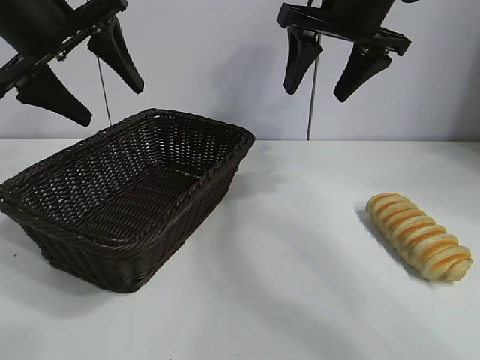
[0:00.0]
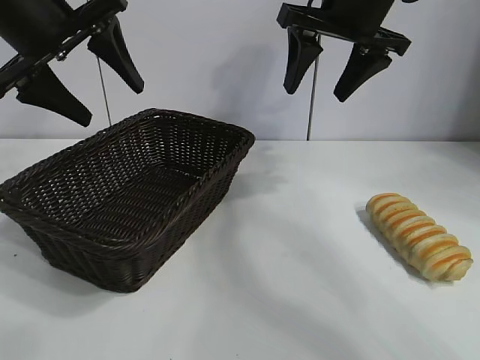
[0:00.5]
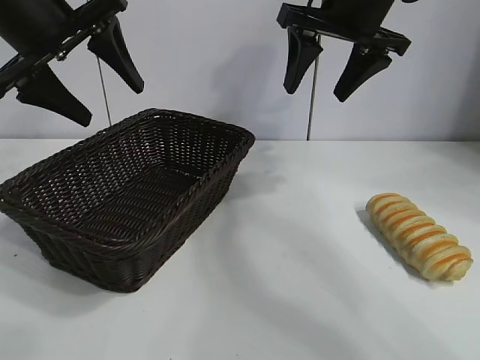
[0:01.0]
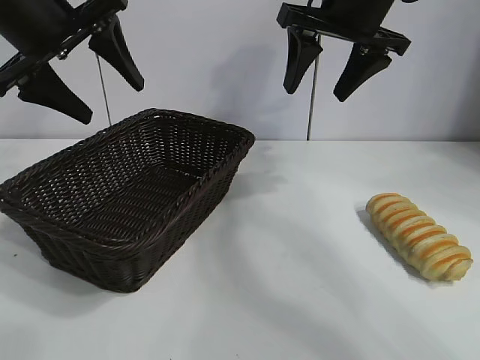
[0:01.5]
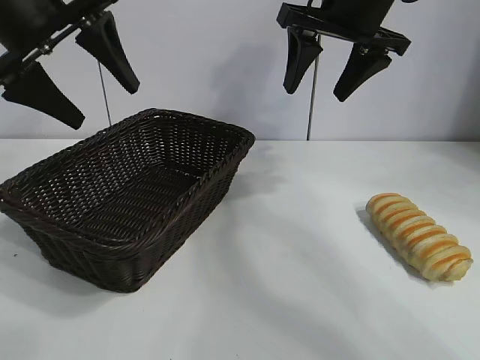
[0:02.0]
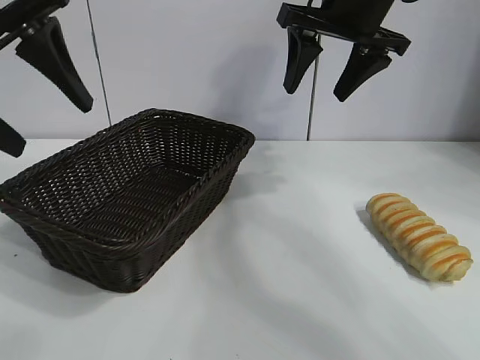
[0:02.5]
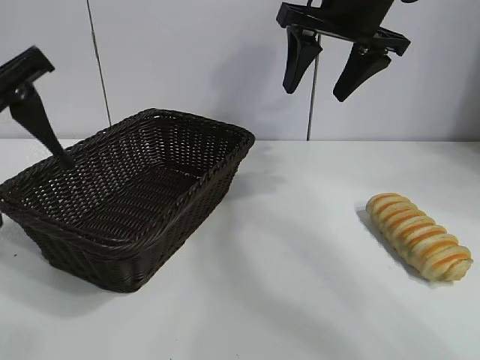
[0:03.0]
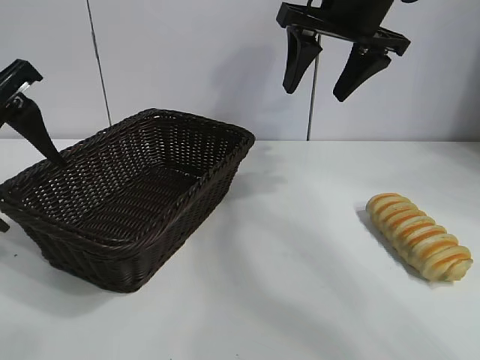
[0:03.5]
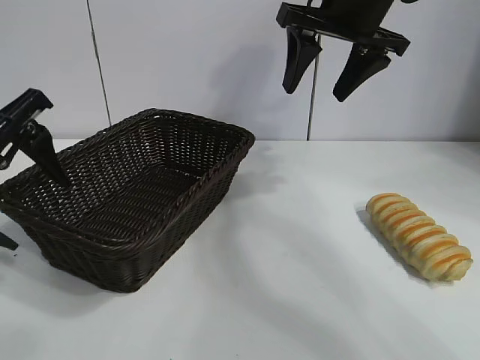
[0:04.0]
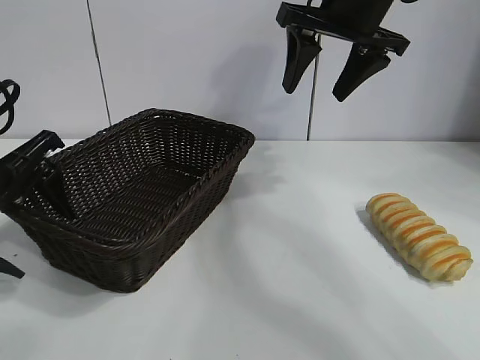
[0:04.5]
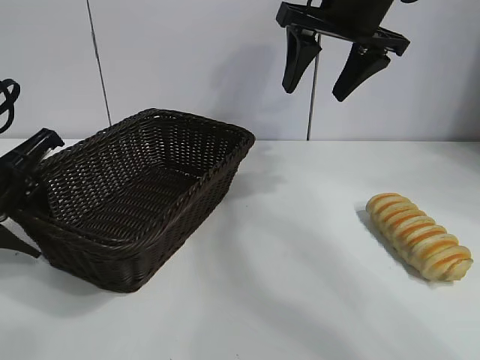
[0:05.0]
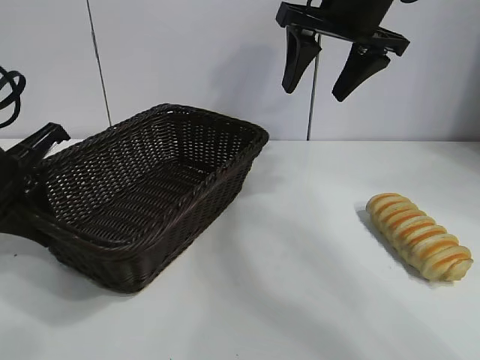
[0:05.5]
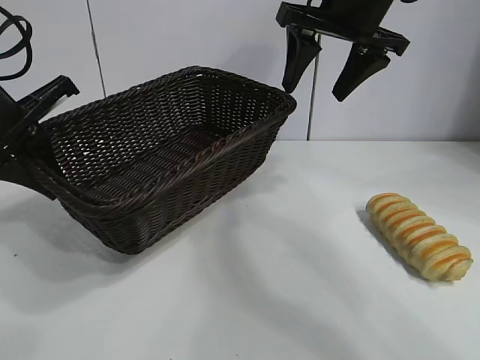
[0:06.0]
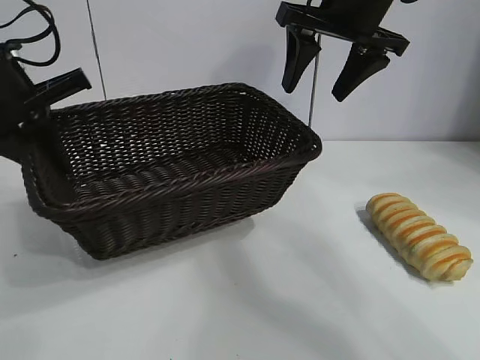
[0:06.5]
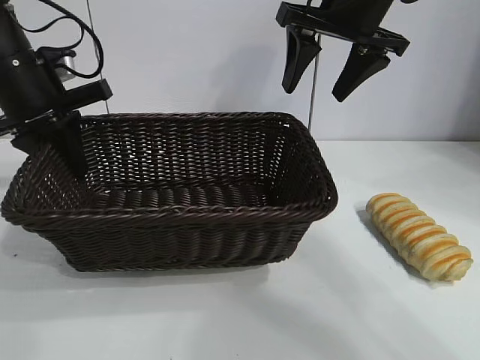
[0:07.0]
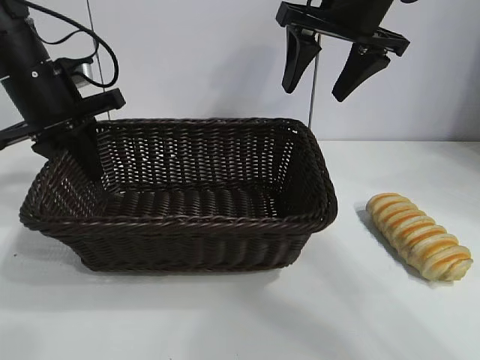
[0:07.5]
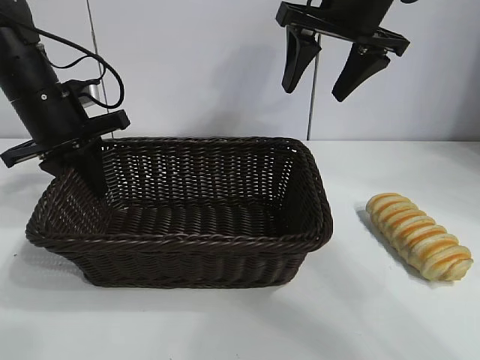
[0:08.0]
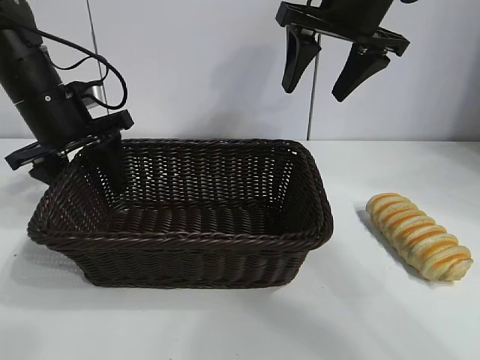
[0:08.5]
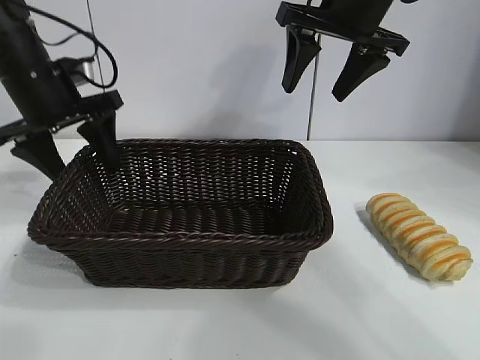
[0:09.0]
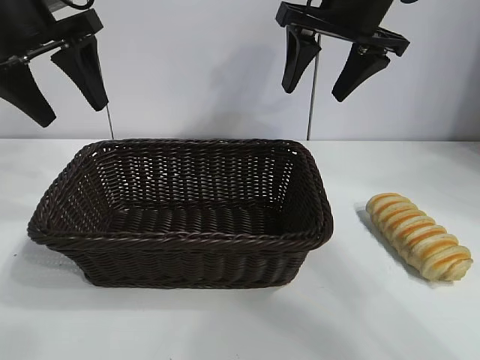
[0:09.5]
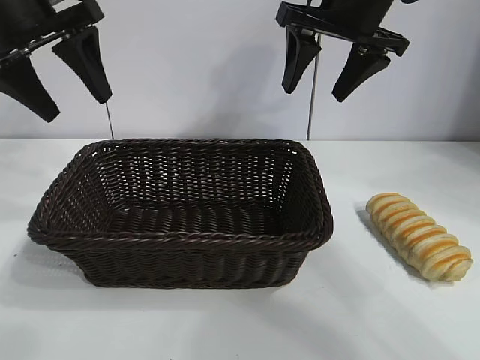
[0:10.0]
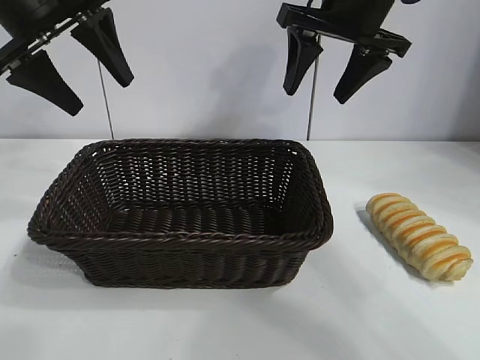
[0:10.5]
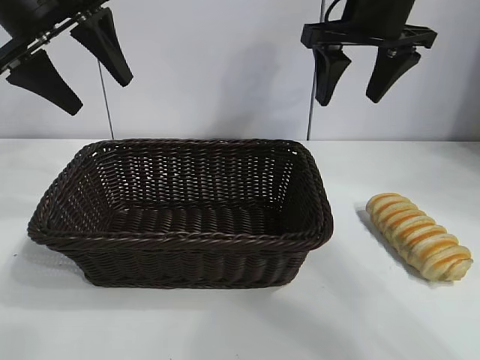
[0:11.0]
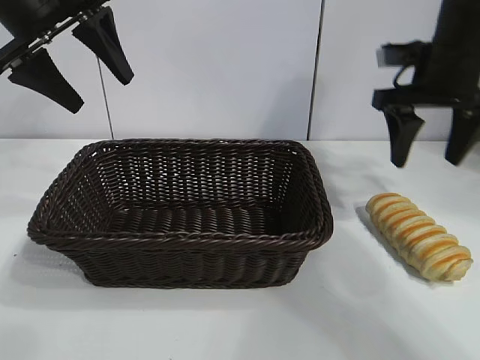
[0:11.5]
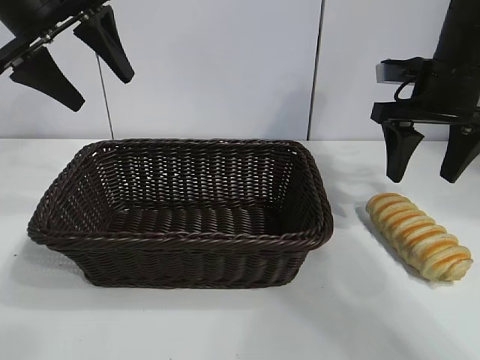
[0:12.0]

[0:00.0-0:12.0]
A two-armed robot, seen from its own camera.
Task of the whole recording: pick up the long bread and put it into the basket.
Step, 0:01.5 to 0:05.0: Grasp the basket with the left gripper.
Step, 0:05.5 to 0:08.5: Place the basket in the center of the table with the left gripper.

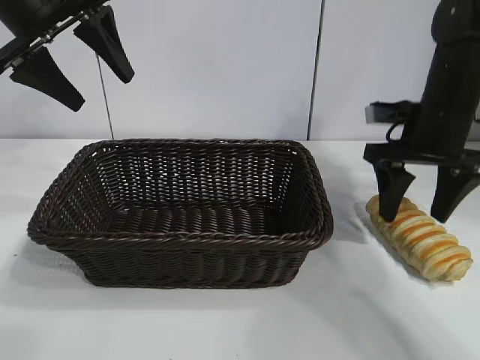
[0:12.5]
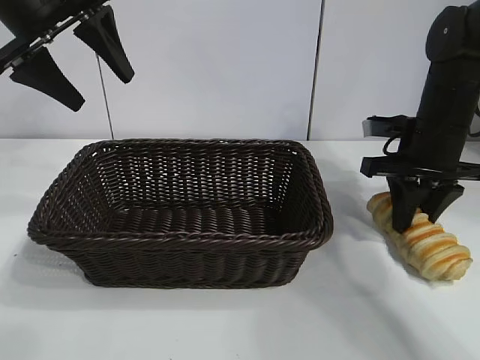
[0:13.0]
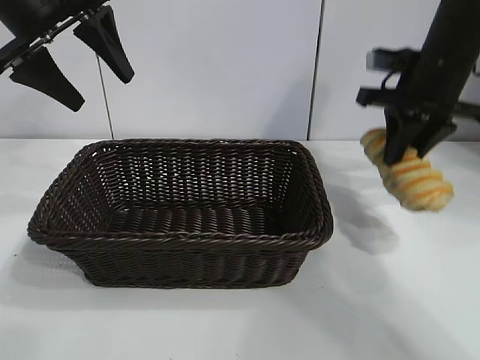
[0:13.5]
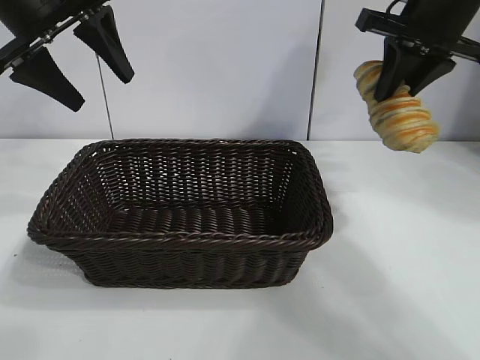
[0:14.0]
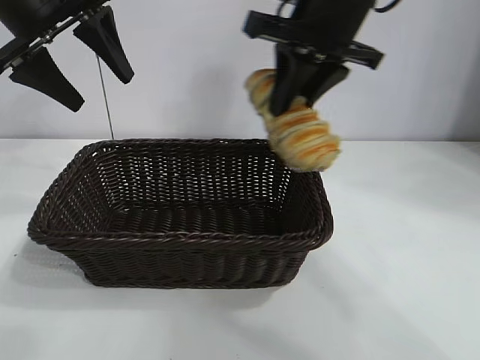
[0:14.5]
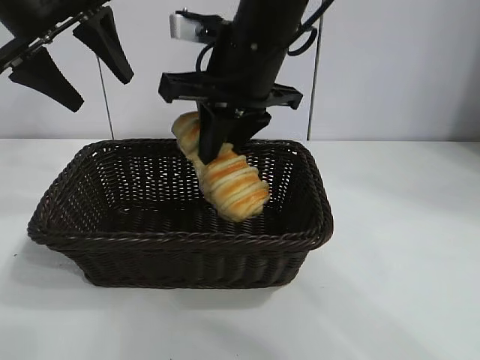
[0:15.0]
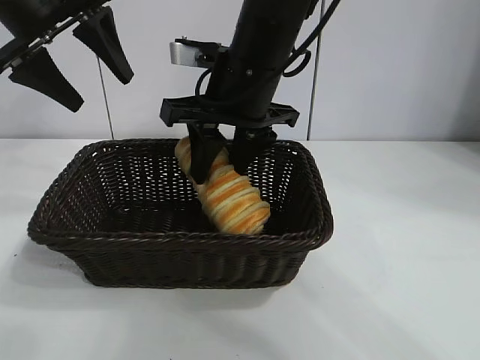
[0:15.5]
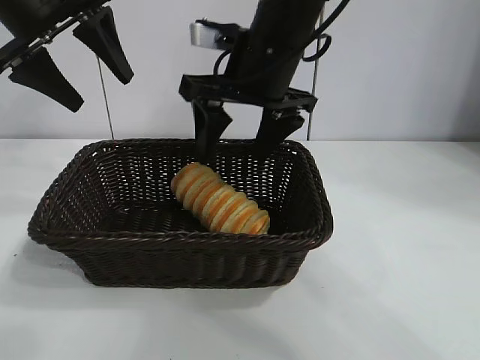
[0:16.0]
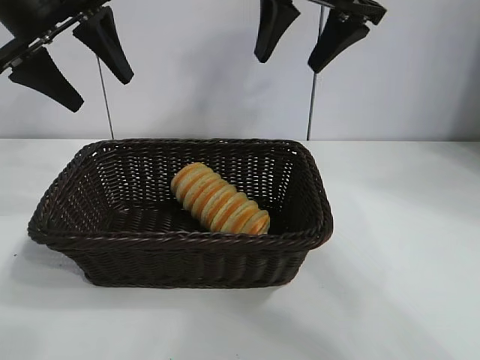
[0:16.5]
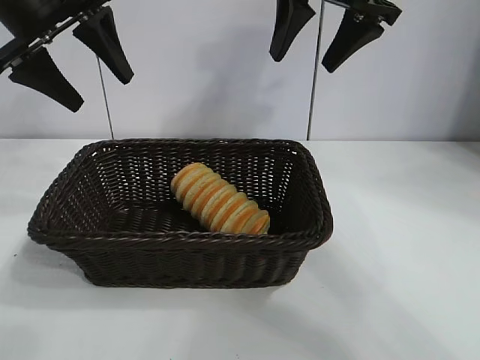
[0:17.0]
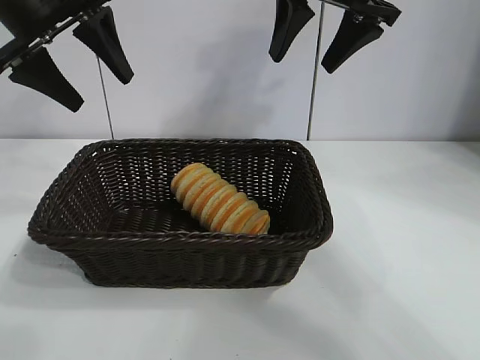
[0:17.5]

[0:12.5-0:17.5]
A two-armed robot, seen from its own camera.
Task of the whole recording: pick up the long bread and put it into the basket.
Step, 0:13.5 to 0:15.5: Place the long bread in the basket with right gripper.
